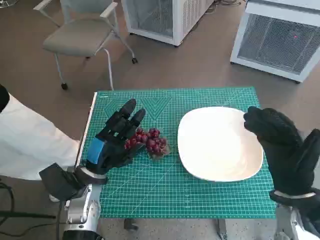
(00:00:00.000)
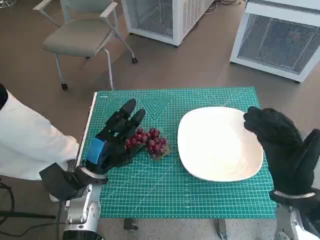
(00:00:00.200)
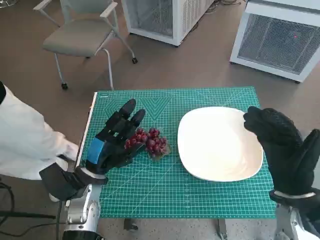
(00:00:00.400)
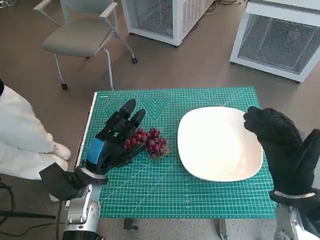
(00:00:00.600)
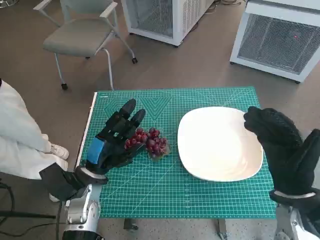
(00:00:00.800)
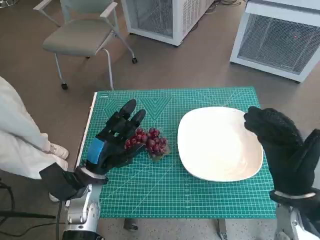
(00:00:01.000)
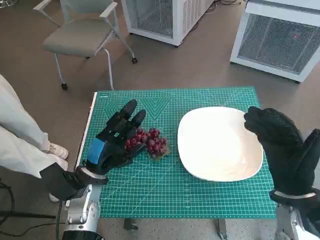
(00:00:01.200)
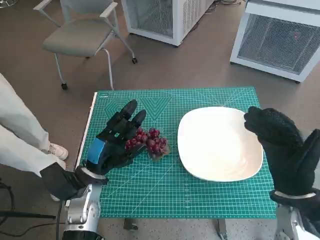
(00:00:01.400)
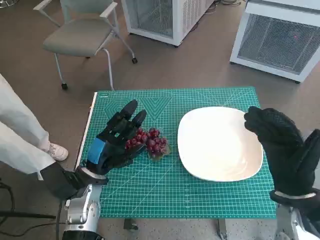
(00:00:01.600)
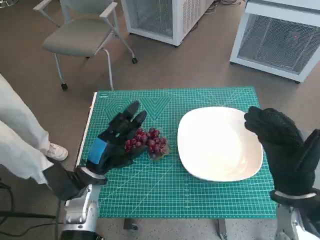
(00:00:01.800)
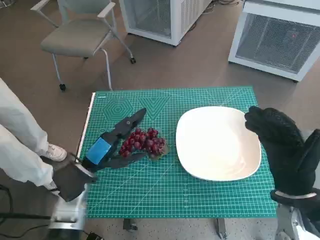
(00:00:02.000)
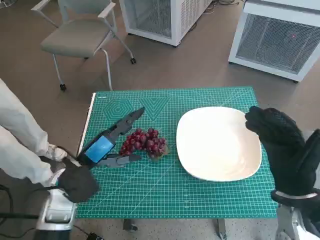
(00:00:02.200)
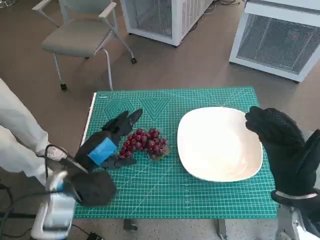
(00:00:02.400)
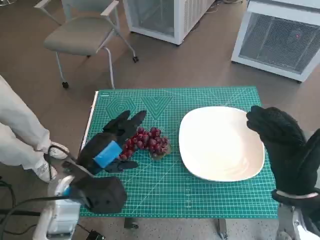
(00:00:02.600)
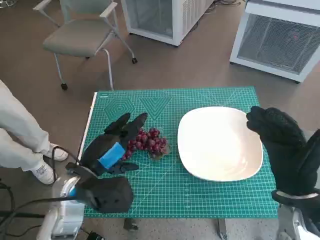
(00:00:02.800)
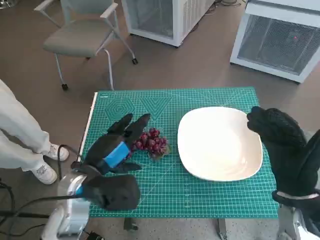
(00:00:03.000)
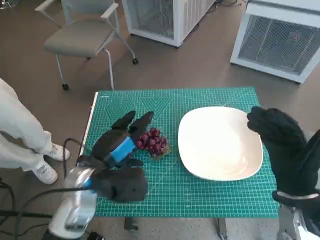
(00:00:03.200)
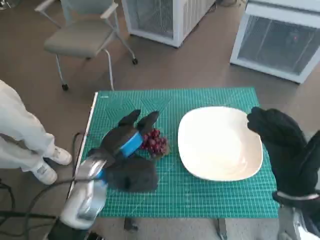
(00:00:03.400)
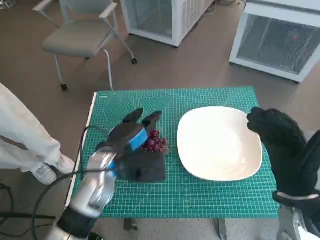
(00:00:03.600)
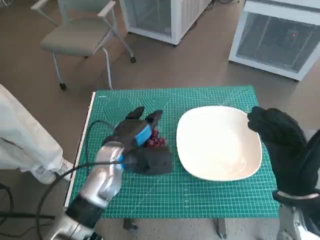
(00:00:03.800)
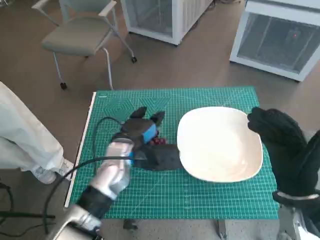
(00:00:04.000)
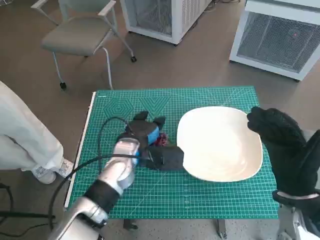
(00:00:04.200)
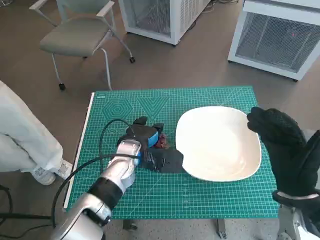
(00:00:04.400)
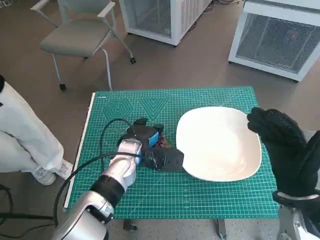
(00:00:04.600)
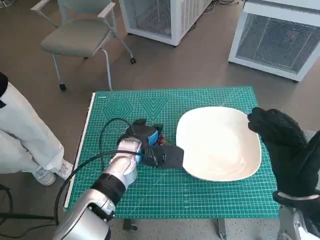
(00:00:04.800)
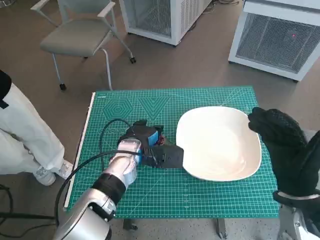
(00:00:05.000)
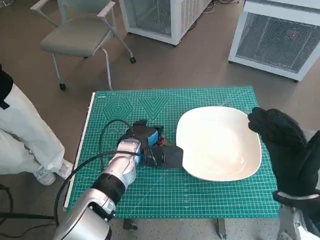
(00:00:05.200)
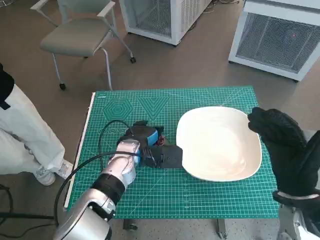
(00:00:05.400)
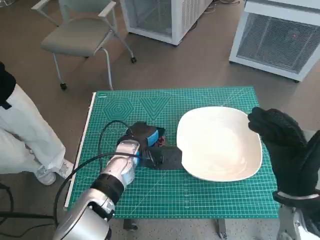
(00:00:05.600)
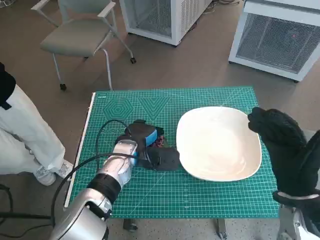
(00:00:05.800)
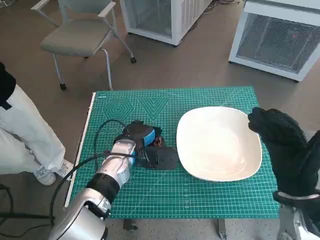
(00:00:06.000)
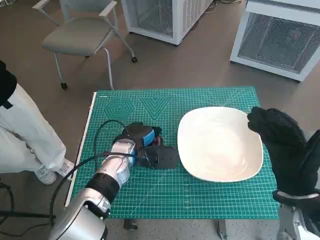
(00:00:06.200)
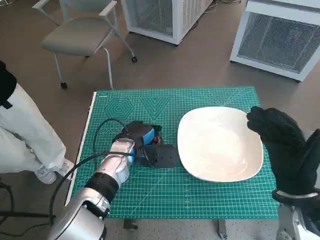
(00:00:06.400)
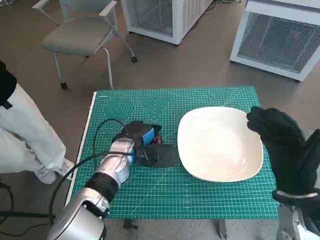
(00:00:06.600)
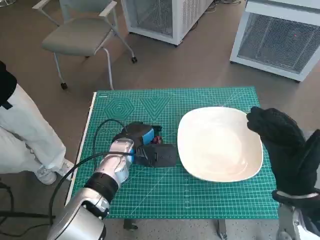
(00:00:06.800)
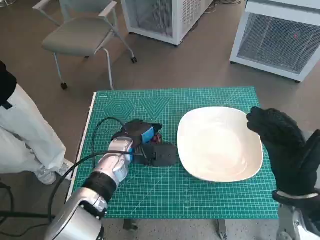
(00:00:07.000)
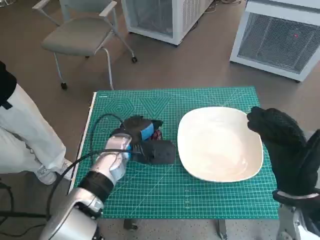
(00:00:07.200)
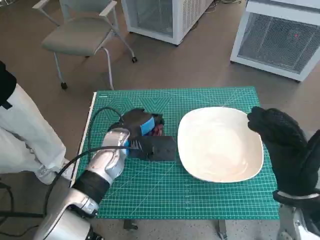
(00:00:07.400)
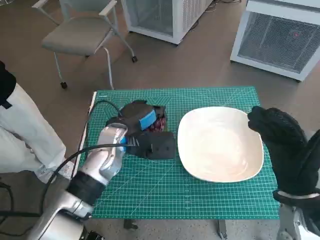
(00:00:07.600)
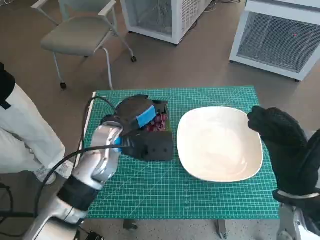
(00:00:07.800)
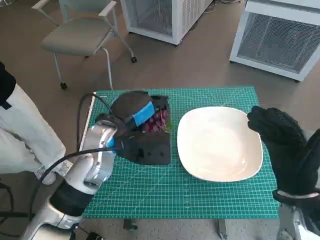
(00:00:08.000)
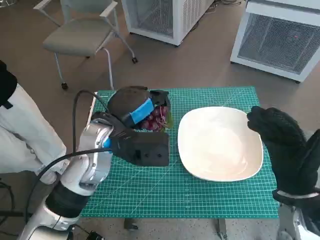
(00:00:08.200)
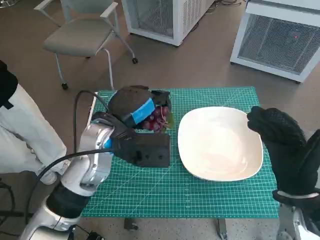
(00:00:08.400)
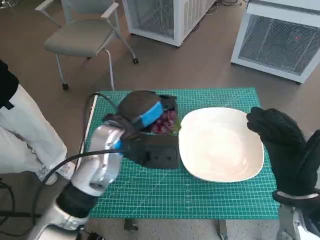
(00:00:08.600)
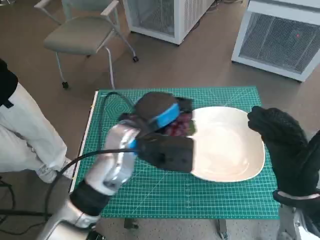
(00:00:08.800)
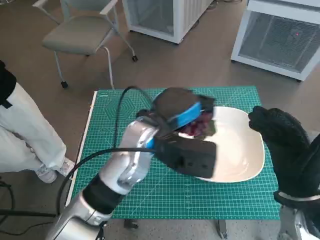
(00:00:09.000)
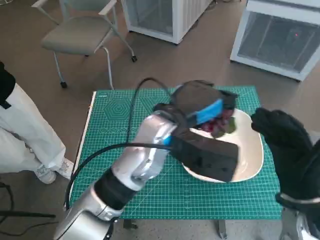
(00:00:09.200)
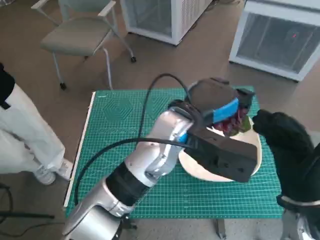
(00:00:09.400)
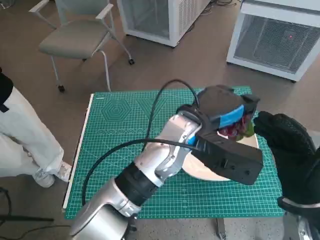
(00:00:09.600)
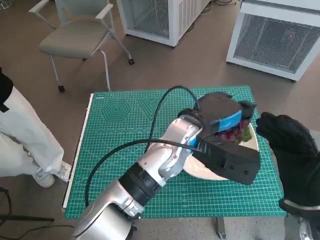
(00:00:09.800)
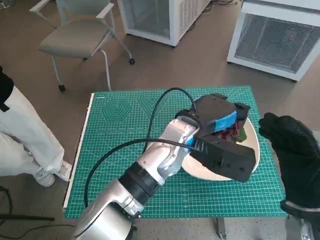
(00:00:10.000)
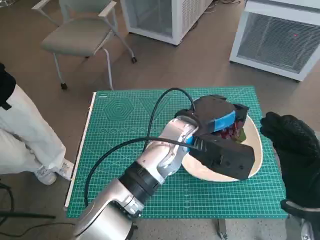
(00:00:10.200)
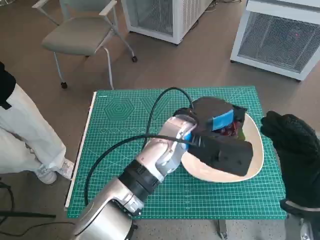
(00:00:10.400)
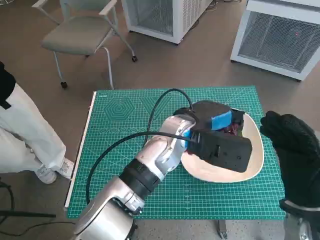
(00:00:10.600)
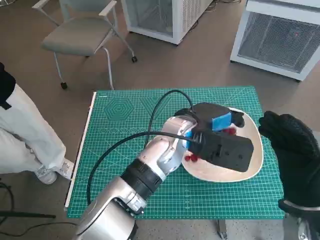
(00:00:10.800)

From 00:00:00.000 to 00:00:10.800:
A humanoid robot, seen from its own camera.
Task of the whole recording: Pick up the grapes and put them on the plate.
Step, from 00:00:00.000 to 00:00:05.800: Grasp the grapes with left hand.
From 00:00:01.600 to 00:00:03.000: The left hand goes approximately 5 cm upward.
From 00:00:03.000 to 00:00:04.600: The left hand moves forward and to the right, roughly 10 cm.
From 00:00:04.600 to 00:00:06.200: The hands stay close to where they were, moving slightly.
From 00:00:06.200 to 00:00:07.800: The left hand moves upward, some 10 cm.
From 00:00:07.800 to 00:00:09.200: The left hand shifts about 10 cm to the right and upward.
From 00:00:09.200 to 00:00:10.800: The left hand ends up about 5 cm from where it was.

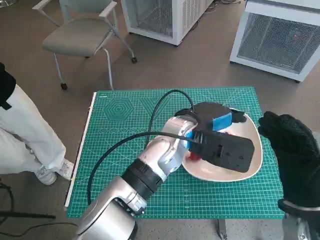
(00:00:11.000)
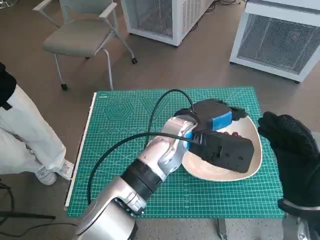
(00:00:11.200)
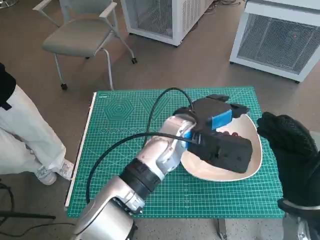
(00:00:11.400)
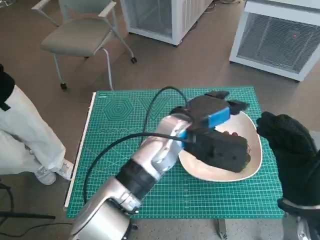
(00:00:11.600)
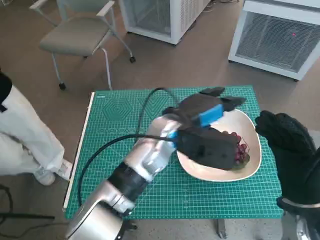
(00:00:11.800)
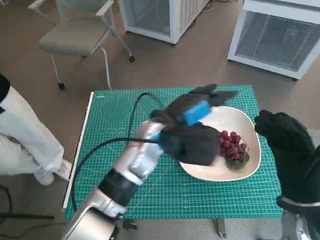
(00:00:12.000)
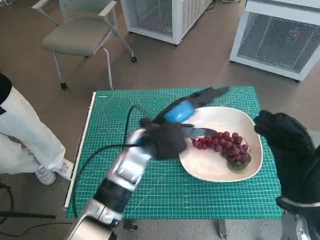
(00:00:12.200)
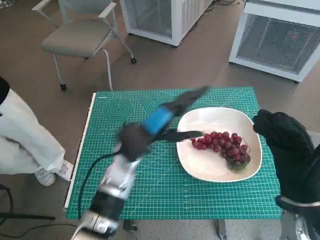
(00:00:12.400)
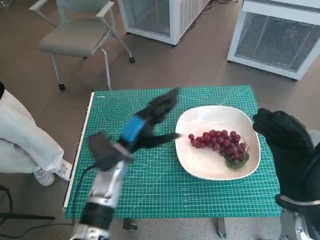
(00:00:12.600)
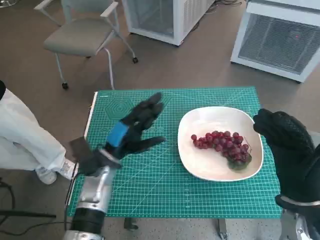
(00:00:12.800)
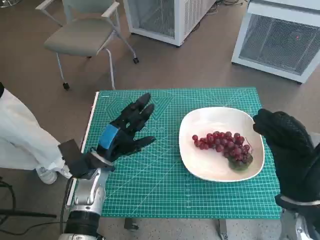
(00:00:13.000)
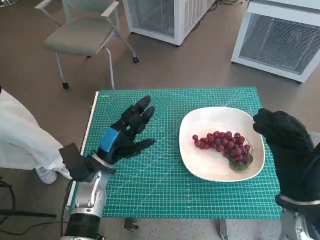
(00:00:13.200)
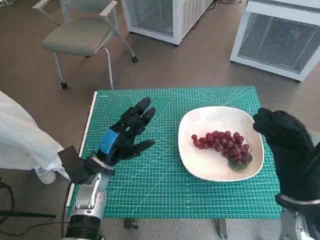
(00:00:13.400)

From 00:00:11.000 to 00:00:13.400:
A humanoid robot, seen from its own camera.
Task of the whole recording: Pick up the grapes and put them on the plate.
From 00:00:11.000 to 00:00:12.200: The left hand is displaced to the left by roughly 5 cm.
From 00:00:12.200 to 00:00:13.400: The left hand heads to the left and downward, covering approximately 15 cm.
